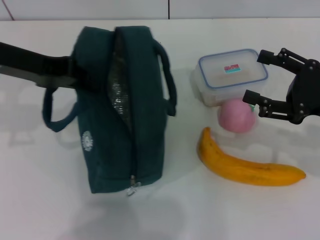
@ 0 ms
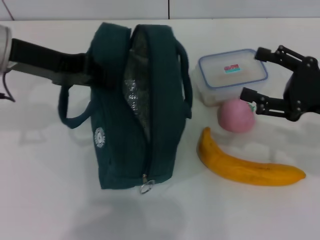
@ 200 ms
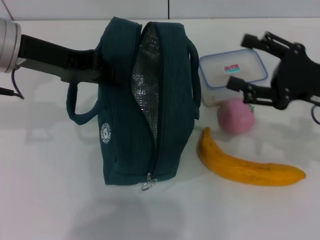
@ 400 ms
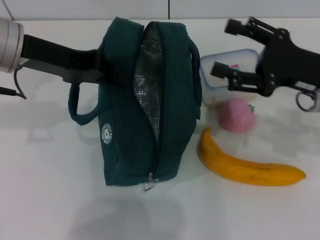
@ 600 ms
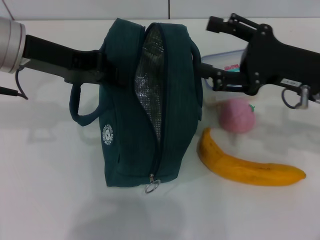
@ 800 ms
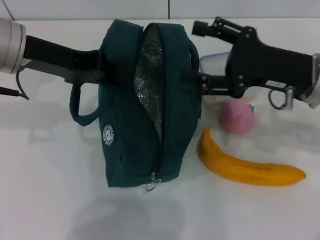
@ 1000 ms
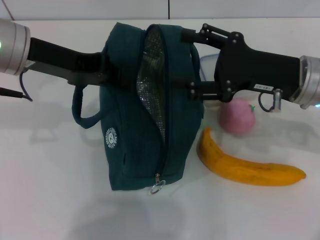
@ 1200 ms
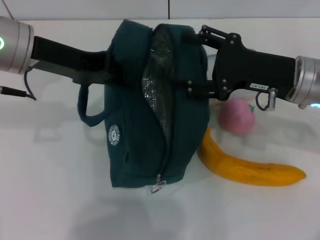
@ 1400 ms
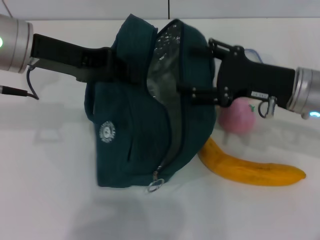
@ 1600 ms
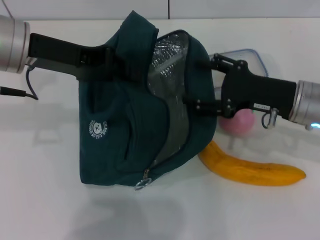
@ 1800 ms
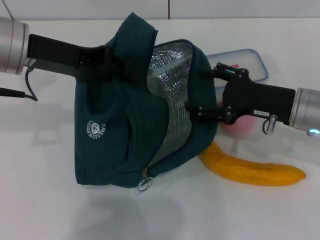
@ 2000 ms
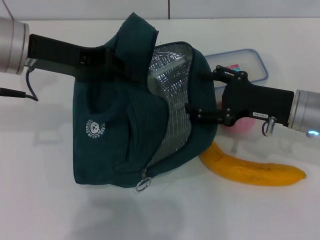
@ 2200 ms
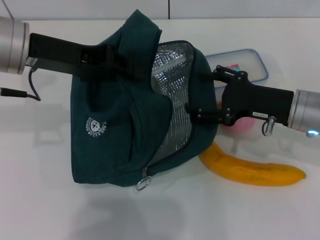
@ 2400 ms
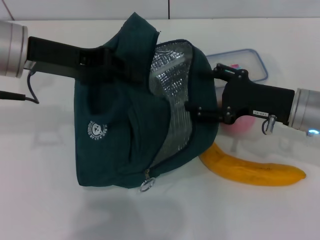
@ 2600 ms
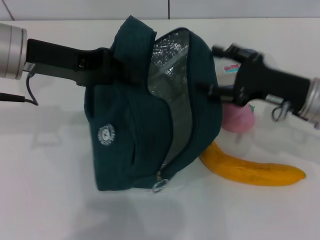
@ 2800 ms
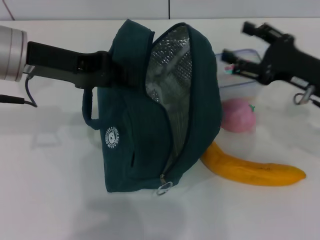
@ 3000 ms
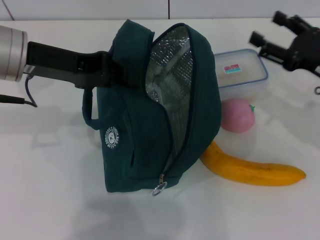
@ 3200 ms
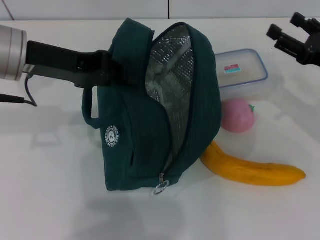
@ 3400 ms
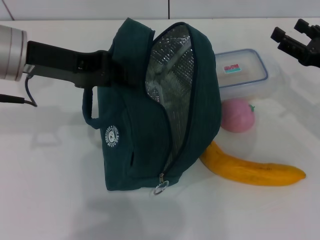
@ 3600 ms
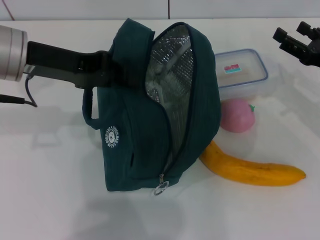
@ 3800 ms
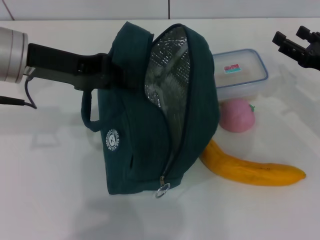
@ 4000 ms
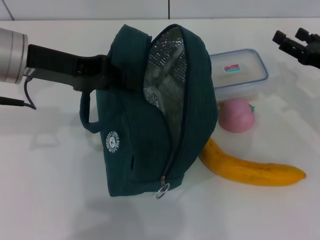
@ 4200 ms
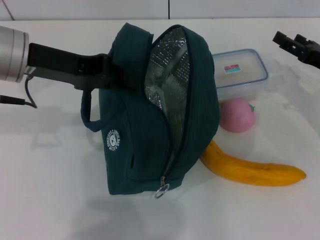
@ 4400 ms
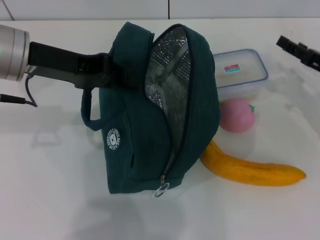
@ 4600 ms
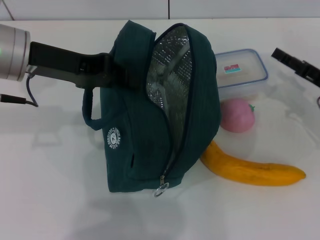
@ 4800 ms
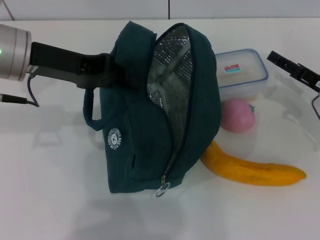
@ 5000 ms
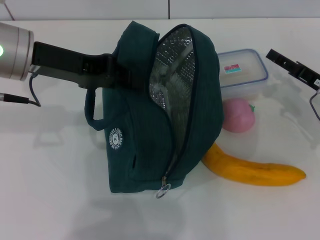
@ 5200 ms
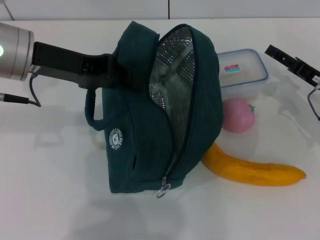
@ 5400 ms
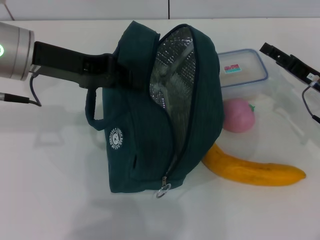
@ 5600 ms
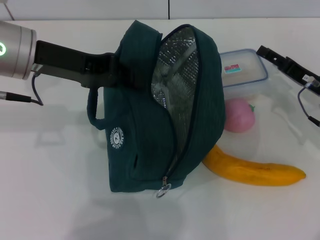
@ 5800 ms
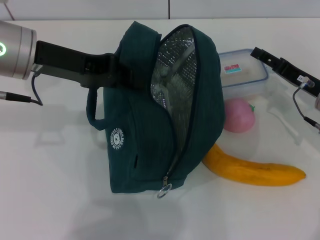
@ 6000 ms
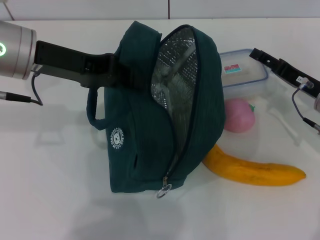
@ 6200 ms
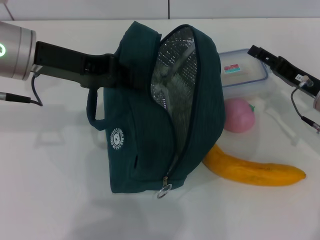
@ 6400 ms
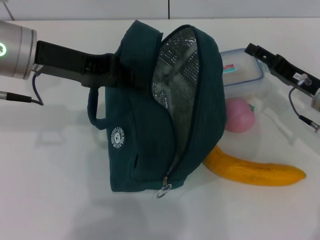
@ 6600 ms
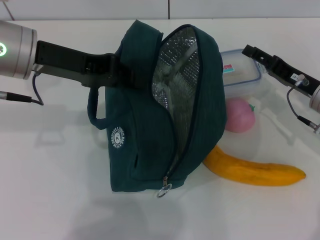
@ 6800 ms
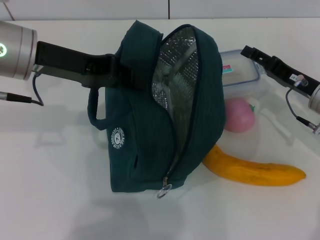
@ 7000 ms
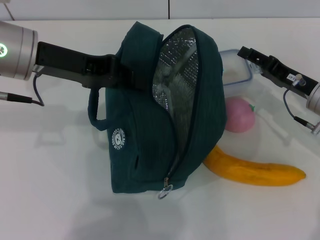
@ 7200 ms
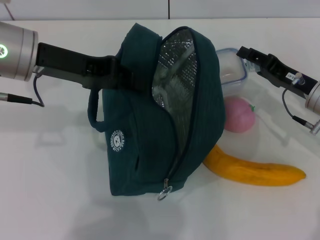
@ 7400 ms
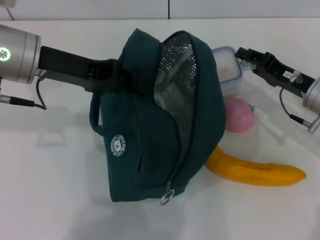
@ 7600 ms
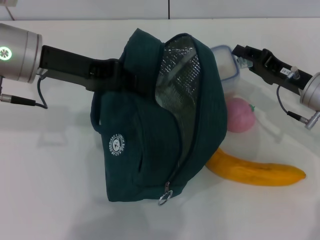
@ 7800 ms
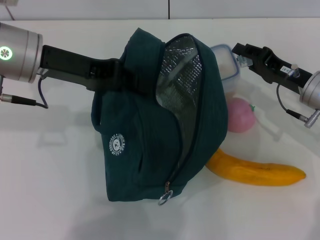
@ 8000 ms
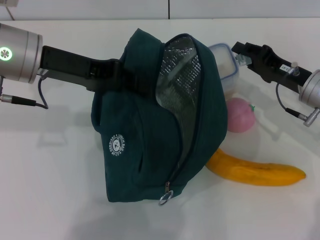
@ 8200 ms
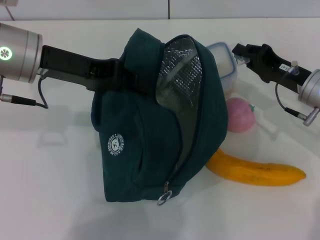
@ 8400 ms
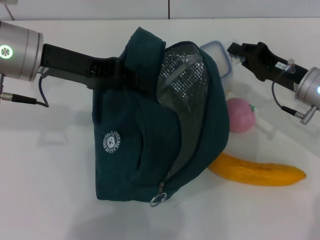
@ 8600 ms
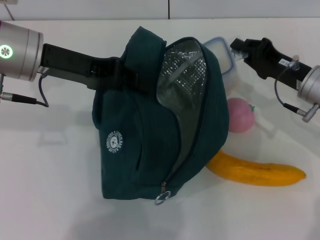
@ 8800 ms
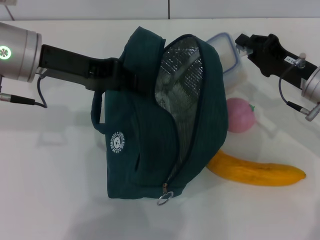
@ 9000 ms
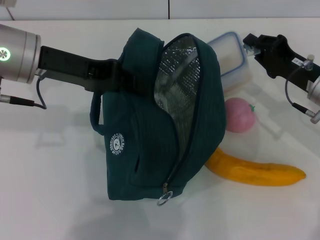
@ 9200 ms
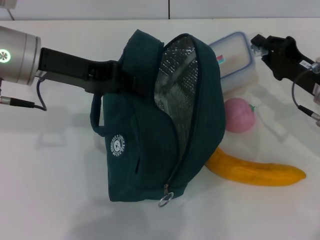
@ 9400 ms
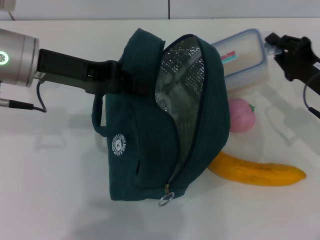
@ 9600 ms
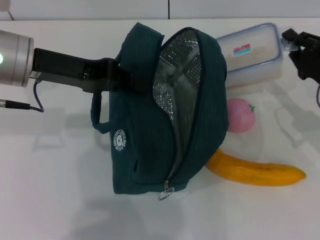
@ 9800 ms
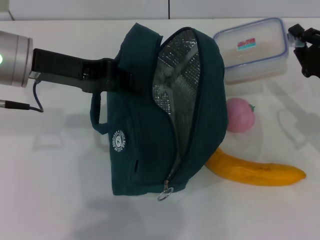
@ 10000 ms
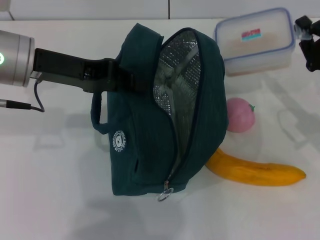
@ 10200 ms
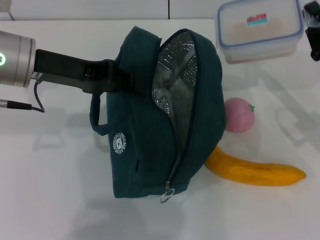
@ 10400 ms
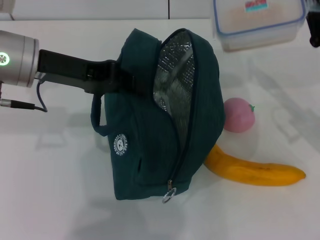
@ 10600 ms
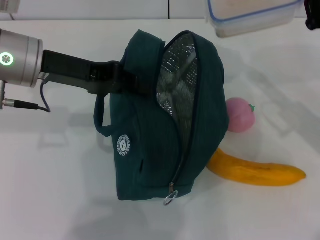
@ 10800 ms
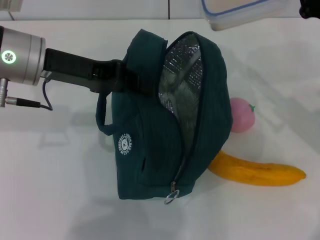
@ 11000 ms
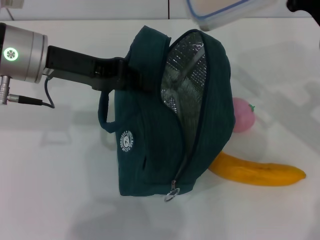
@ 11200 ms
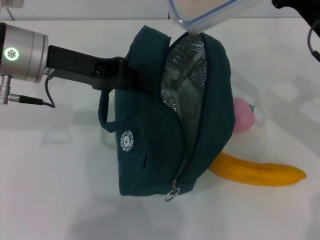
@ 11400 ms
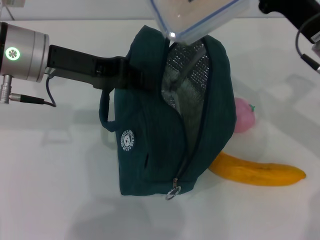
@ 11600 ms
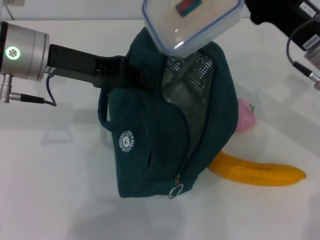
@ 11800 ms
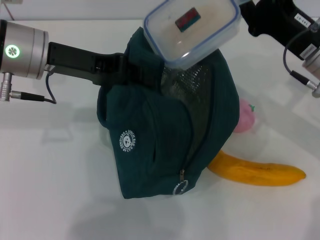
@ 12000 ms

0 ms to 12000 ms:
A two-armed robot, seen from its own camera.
Step, 0 ms to 9000 ms: Pick up the lunch box with your right hand.
0 ms to 1600 ms: The right gripper goes roughly 10 cm to the left.
1600 ms to 3000 ms: The right gripper changes place by some 5 cm.
3000 ms to 4400 ms: The right gripper shifts some 5 cm to the right.
6000 ms to 7600 ms: The grippers make only small movements.
7600 ms to 9000 ms: The right gripper closes its fingers.
9000 ms to 10400 ms: The right gripper shifts by approximately 5 cm.
10400 ms to 12000 ms: The right gripper is displaced to the left by roughly 5 cm.

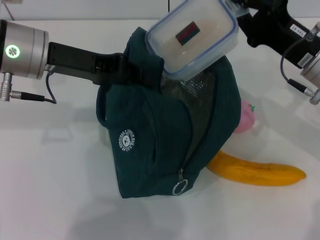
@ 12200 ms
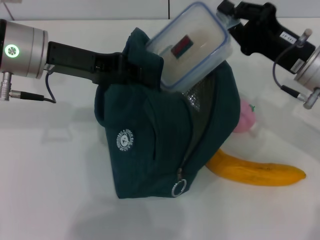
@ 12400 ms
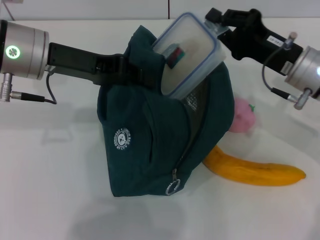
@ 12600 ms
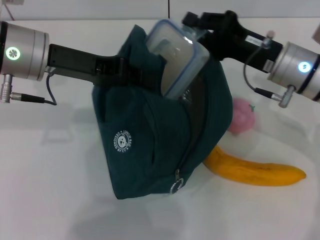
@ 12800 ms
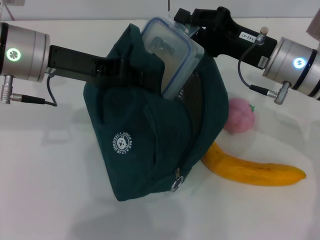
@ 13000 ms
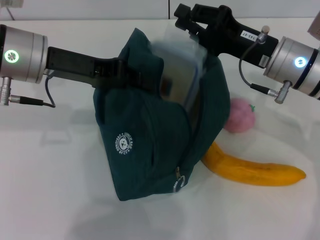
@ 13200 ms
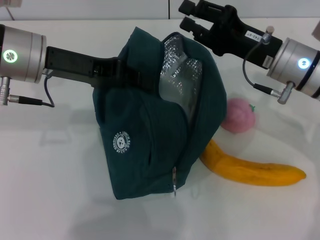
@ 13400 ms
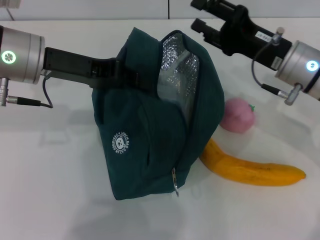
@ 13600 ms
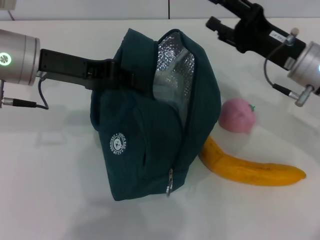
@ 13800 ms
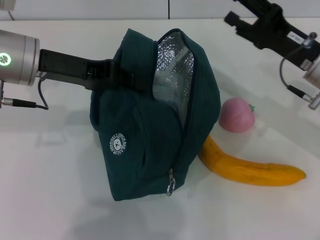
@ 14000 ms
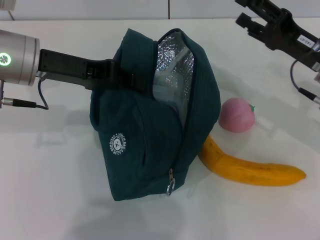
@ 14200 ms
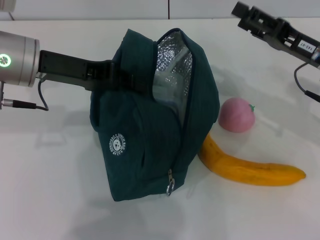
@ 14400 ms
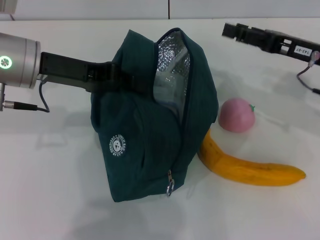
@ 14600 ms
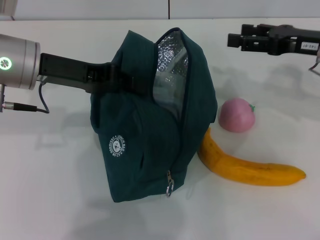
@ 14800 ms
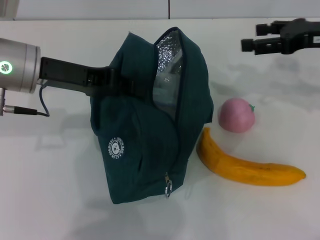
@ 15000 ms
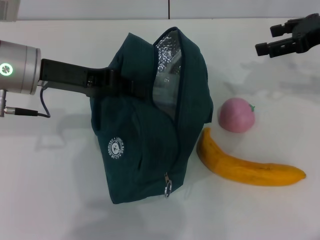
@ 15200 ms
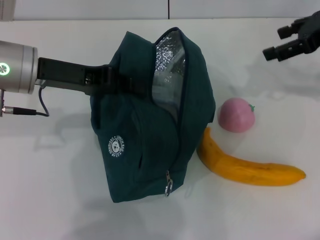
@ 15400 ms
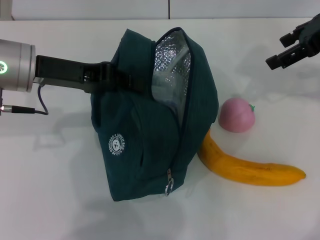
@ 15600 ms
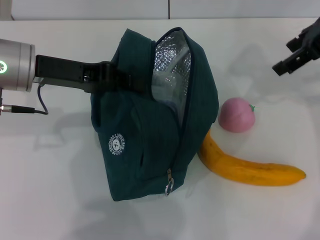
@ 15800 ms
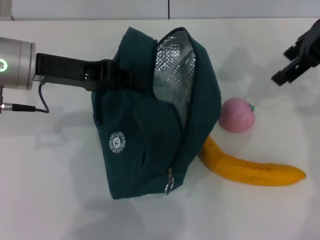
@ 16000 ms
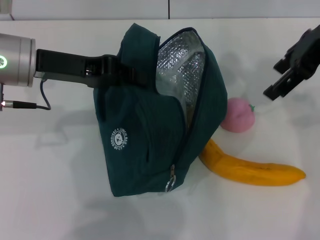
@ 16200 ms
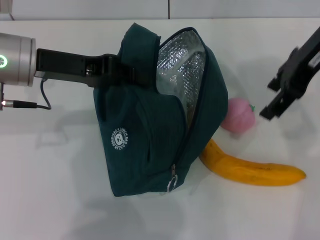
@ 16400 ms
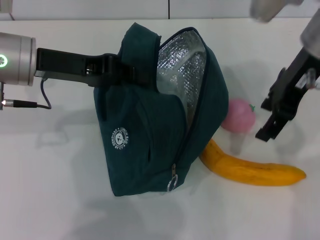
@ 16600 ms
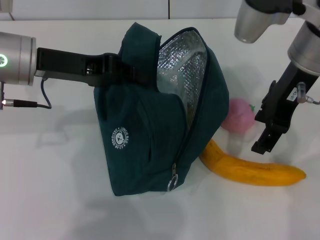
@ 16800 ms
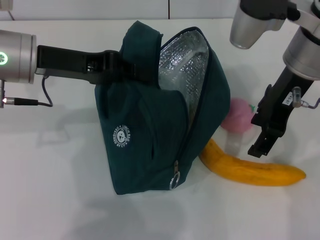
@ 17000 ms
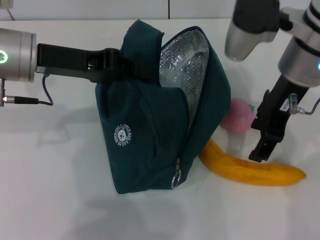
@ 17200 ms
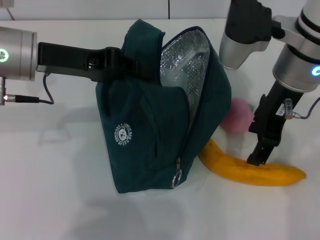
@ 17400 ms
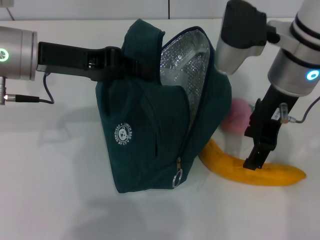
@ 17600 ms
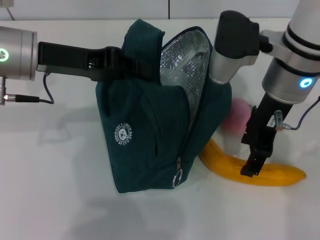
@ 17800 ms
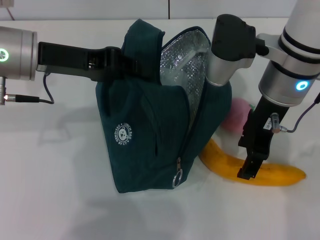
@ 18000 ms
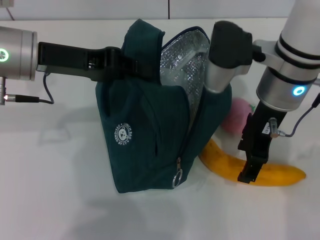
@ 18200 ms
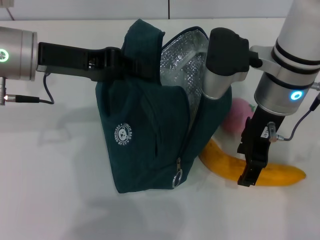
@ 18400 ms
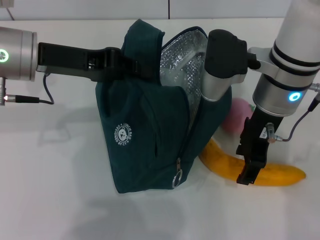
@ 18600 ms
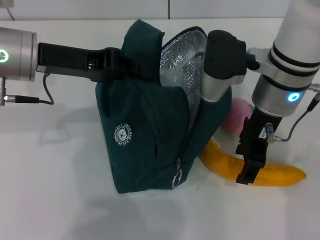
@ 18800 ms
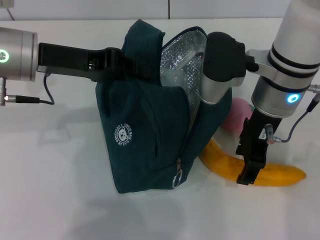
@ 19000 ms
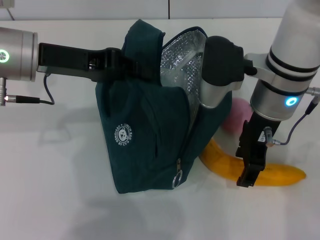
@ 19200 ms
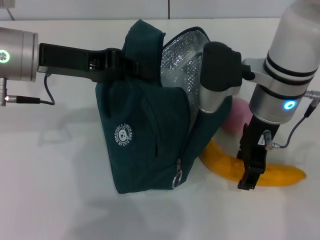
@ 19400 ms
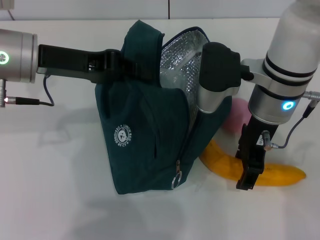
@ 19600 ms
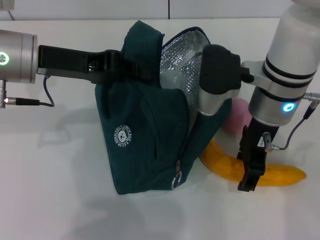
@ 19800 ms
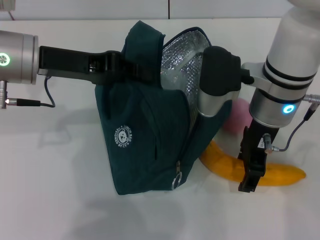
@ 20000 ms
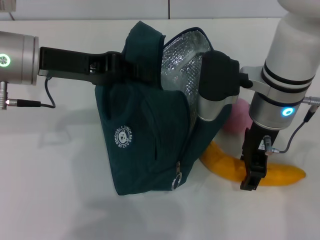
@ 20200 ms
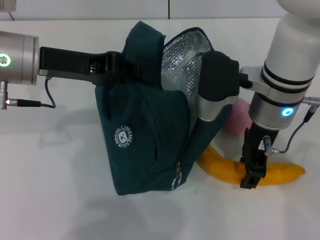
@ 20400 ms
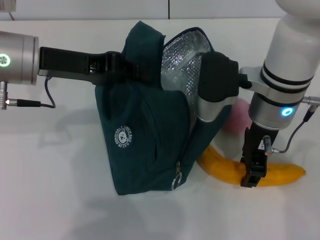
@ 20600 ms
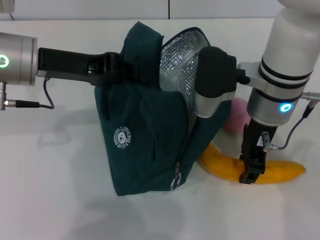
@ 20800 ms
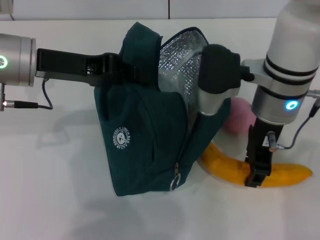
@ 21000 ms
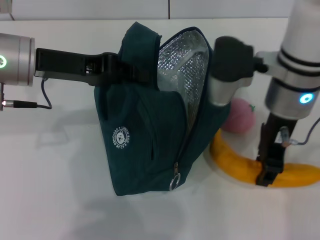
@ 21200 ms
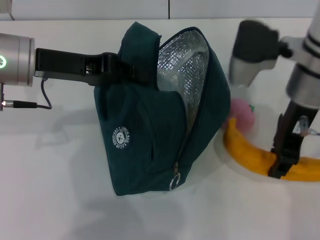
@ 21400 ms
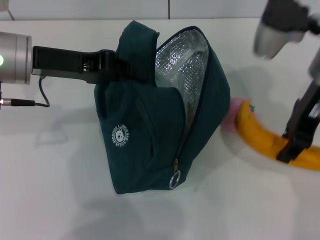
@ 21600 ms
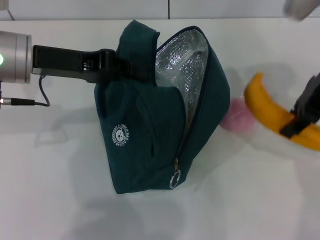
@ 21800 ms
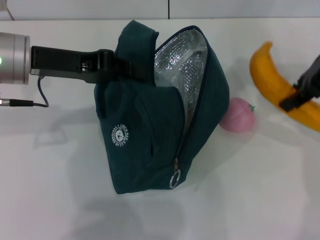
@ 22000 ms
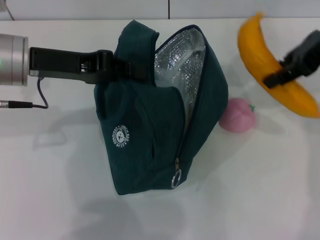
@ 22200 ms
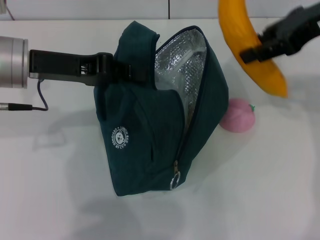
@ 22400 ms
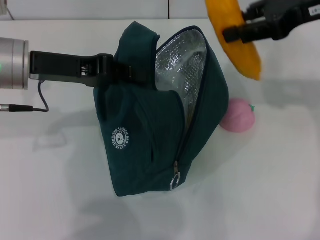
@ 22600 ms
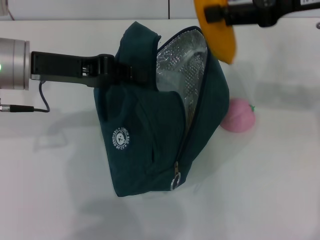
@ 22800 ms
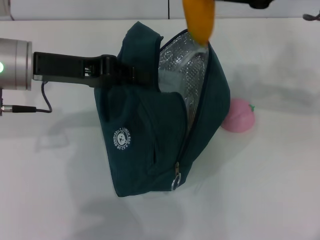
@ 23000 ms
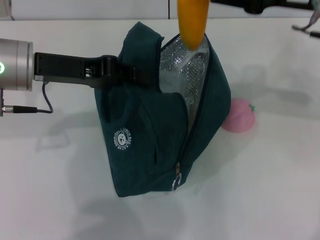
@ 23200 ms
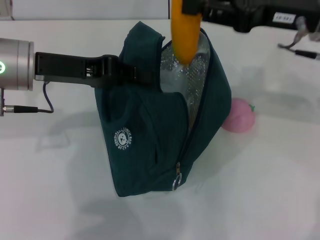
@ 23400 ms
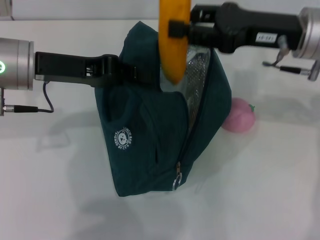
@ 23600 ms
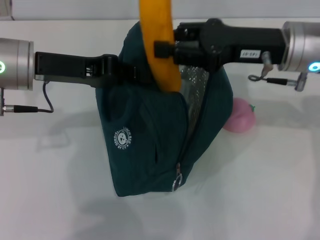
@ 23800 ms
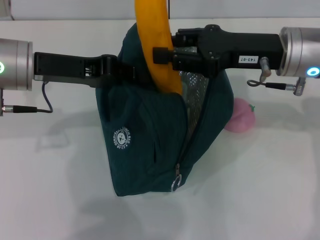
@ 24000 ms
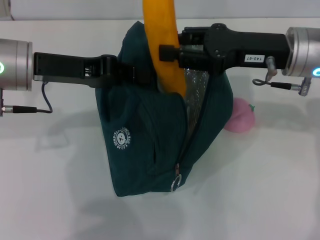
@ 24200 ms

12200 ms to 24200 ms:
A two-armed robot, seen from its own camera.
Step, 13400 ms to 20800 ms: Take the banana with your right hand.
12200 ms to 13800 ms: The right gripper opens its fingers.
13800 ms to 15200 ms: The right gripper shifts approximately 10 cm upward and to the right.
15200 ms to 16600 ms: The right gripper moves to the left, about 15 cm.
16600 ms to 18200 ms: The right gripper travels downward by some 5 cm.
18200 ms to 21200 ms: The grippers stay close to where they were, moving slightly.
21200 ms to 22600 ms: The right gripper heads to the right and upward, covering about 15 cm.
22600 ms to 24200 ms: The right gripper is displaced downward by about 10 cm.
